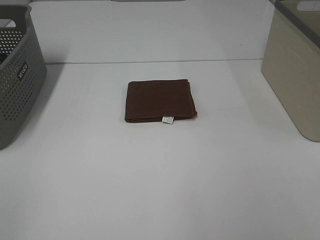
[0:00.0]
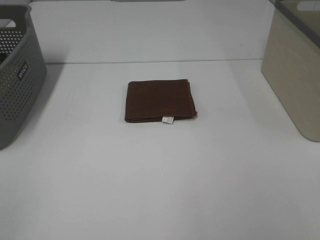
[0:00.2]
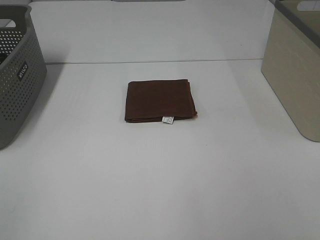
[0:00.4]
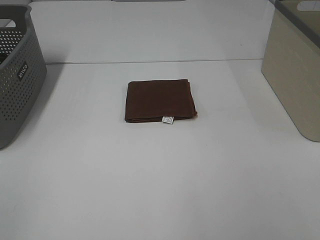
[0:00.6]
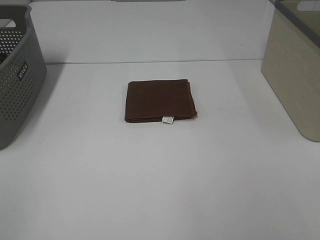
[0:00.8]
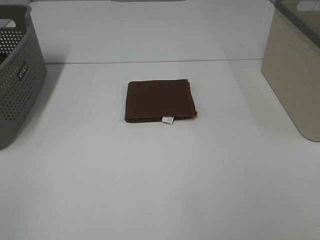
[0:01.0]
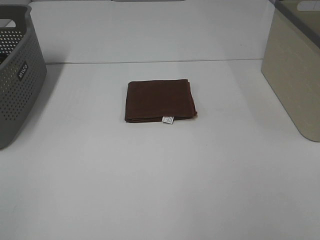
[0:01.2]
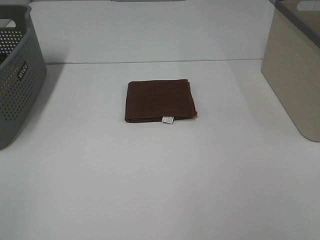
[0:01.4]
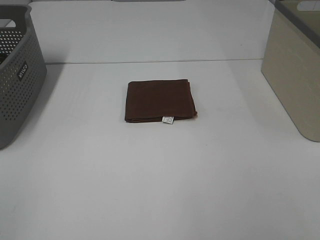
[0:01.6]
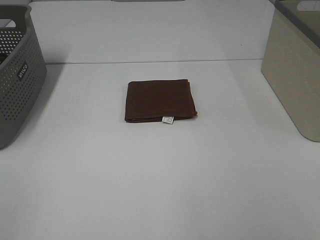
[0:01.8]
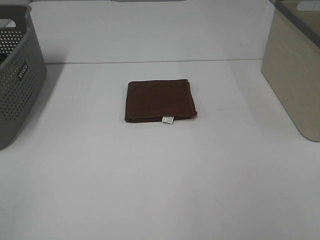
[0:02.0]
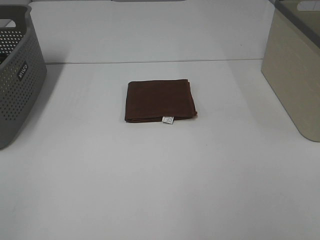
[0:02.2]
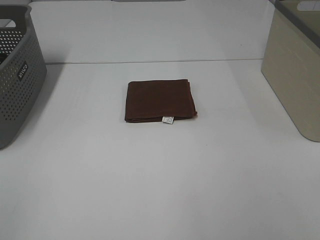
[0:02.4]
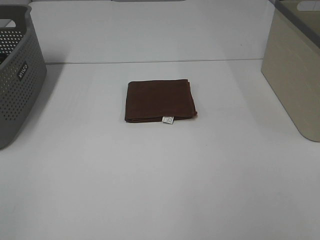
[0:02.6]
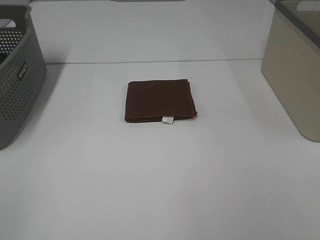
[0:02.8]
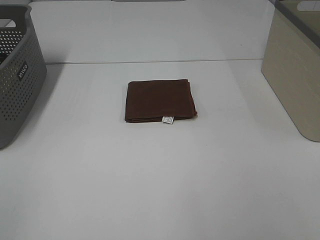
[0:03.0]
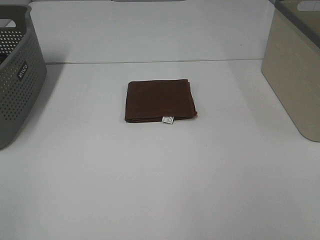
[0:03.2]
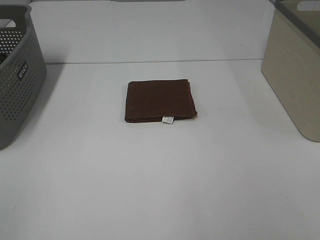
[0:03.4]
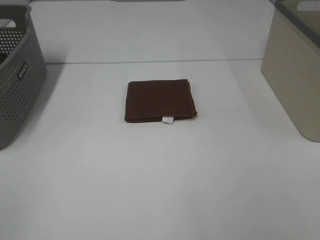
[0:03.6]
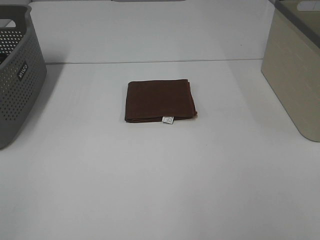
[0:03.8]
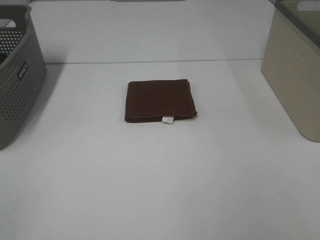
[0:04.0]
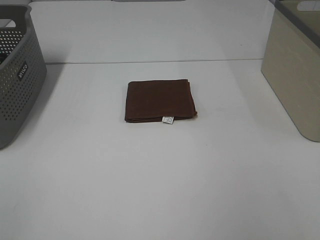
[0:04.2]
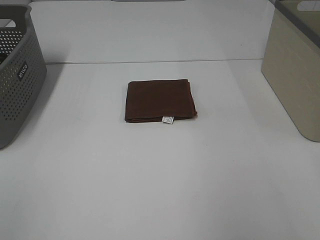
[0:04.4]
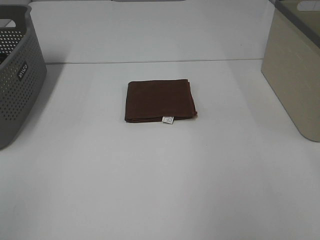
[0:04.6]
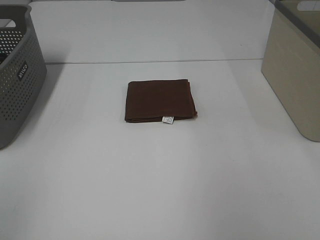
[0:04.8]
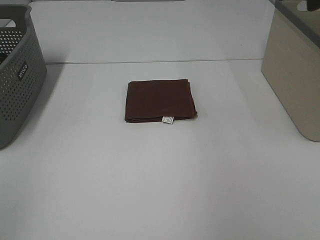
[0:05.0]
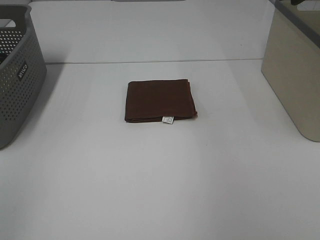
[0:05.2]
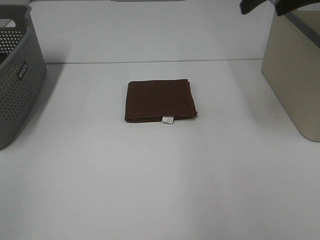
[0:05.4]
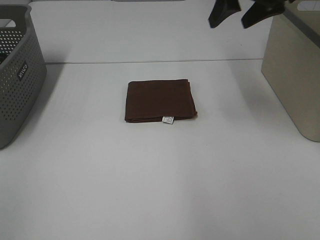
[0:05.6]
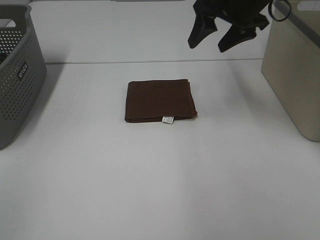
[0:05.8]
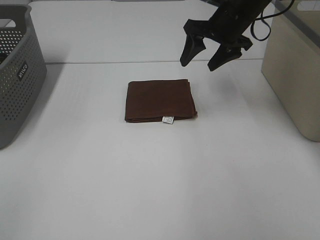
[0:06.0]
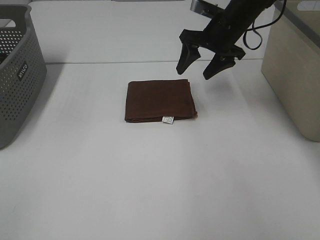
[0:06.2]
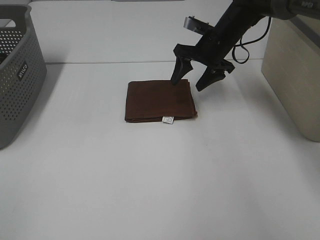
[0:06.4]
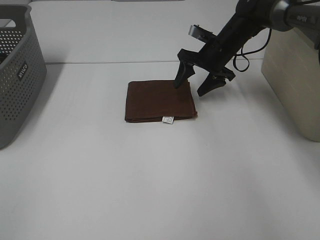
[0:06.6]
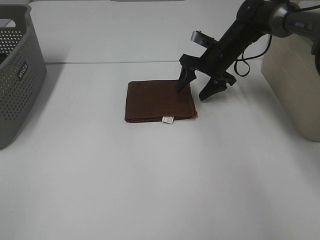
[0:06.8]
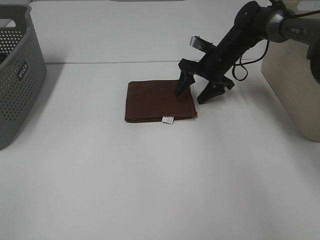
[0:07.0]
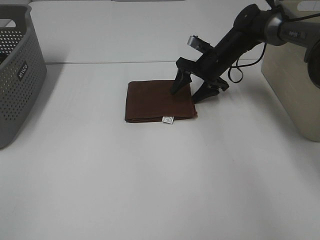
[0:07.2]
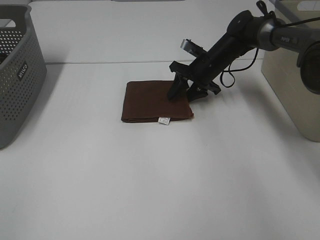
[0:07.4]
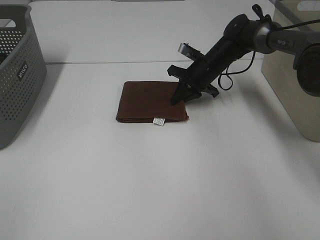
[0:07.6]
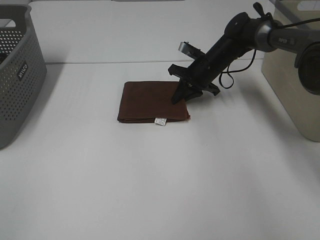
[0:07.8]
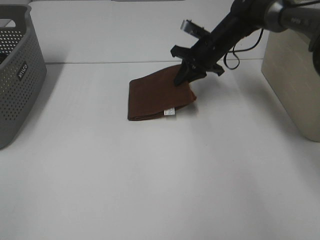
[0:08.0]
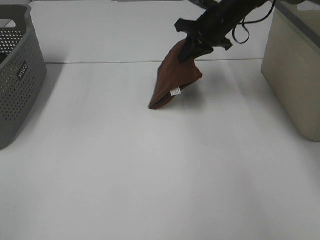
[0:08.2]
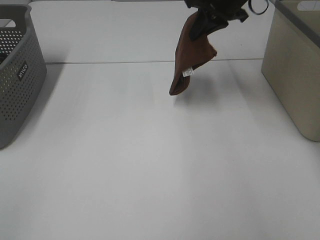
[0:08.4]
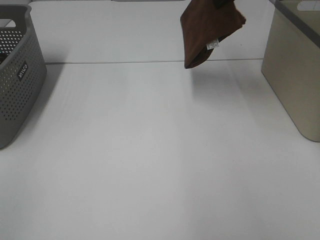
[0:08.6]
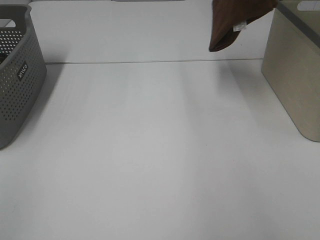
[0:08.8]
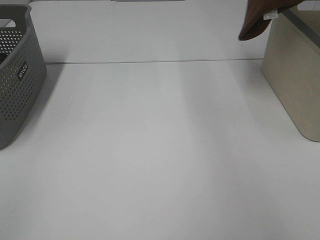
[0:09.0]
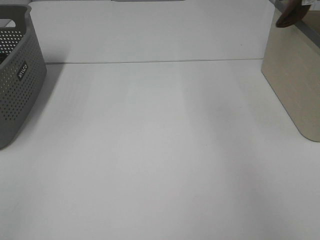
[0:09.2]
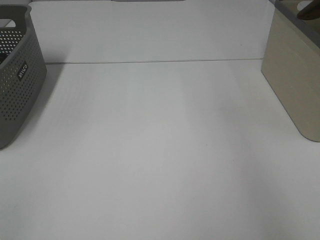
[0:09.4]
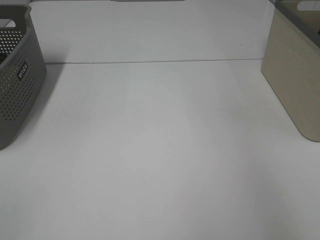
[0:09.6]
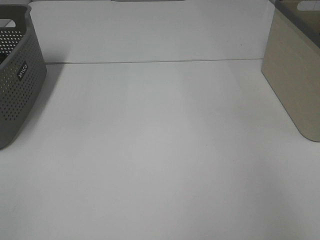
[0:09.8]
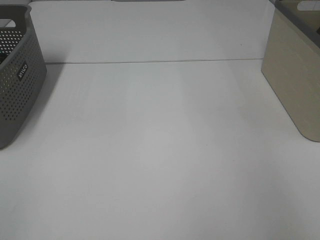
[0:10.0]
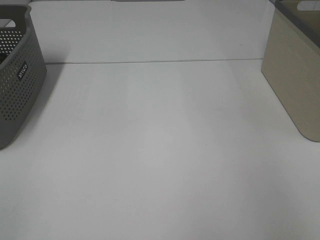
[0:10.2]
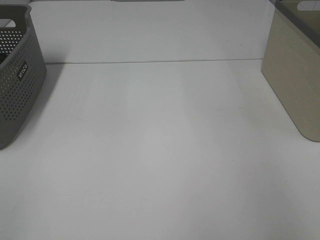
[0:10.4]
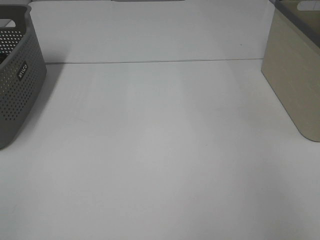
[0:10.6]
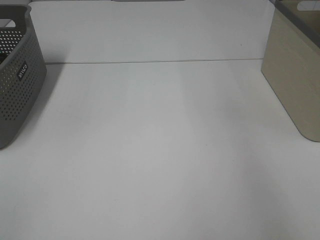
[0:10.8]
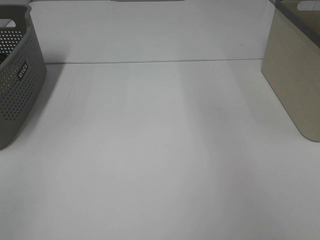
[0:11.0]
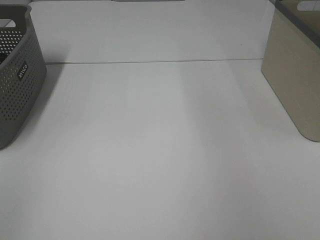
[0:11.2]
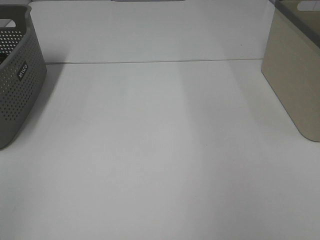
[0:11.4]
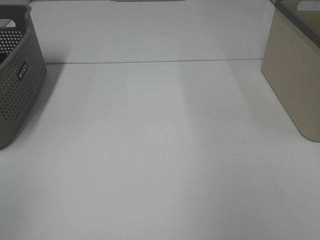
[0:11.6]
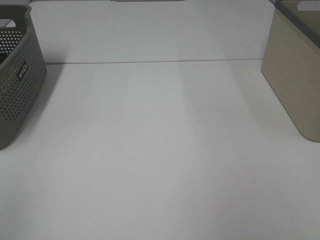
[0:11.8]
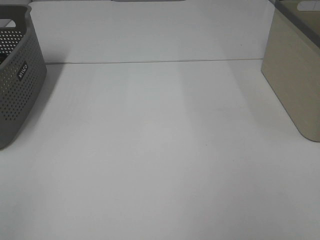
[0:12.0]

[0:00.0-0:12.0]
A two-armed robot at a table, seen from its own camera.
Step, 0.0 to 7.6 s: Right hand: grab the folded brown towel.
Step, 7.8 to 10.4 s: Right hand: place the brown towel in right basket.
0.0 to 3.0 s: Both grippers stay about where they are.
4.4 to 6.0 s: The right gripper shifts approximately 35 cm forward and to the left.
6.0 to 7.6 s: The right gripper is displaced downward by about 15 cm, and closes.
7.6 to 9.0 s: The right gripper is displaced upward and to the right by about 35 cm.
9.0 to 10.4 s: The right gripper shifts some 15 cm to the right and downward, and opens up.

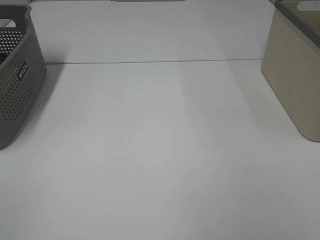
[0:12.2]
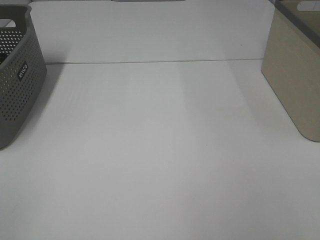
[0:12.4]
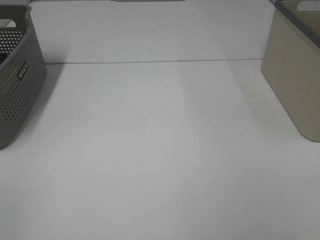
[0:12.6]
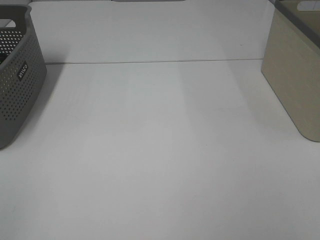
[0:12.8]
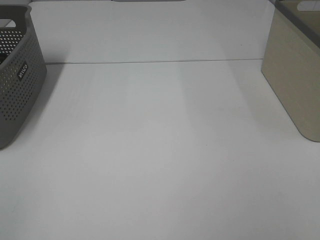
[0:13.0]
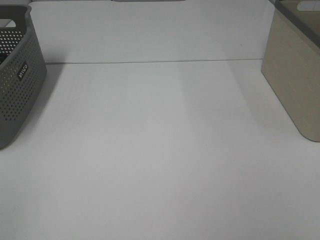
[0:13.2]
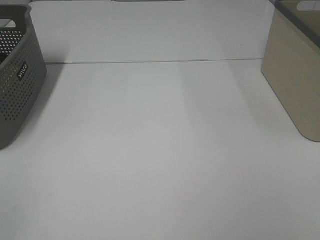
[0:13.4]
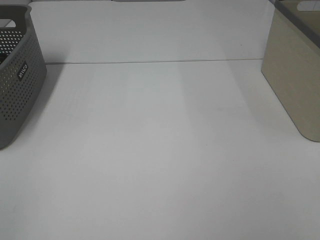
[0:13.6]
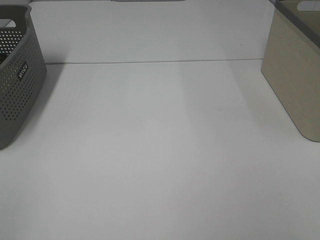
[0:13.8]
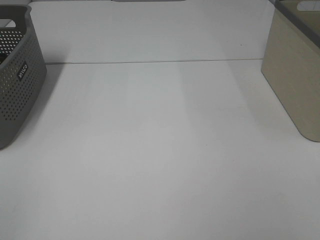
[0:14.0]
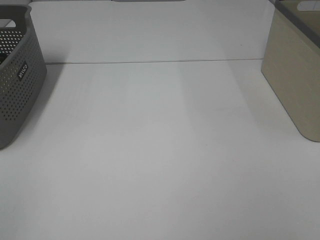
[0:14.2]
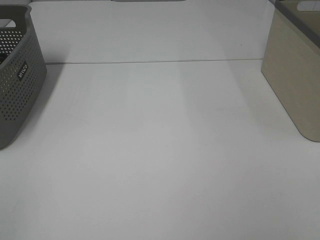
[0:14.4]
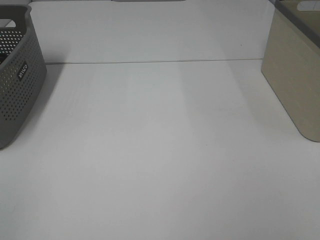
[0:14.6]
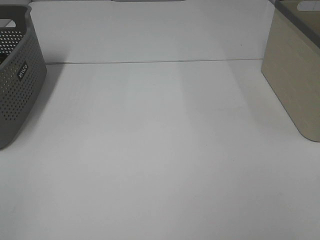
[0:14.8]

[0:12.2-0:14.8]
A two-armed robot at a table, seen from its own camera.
13.4 to 14.8 s: The two grippers keep their place.

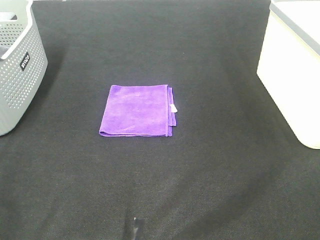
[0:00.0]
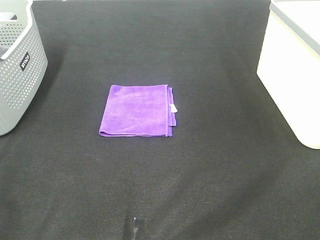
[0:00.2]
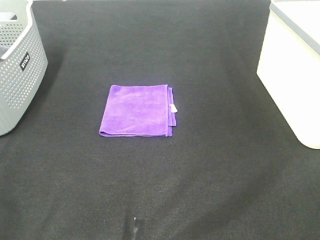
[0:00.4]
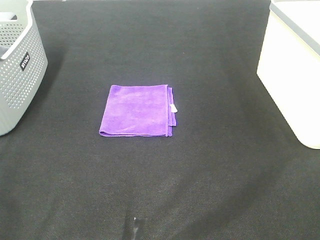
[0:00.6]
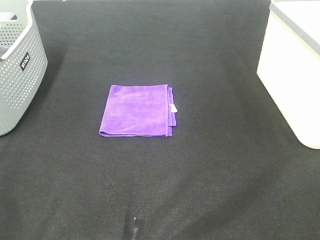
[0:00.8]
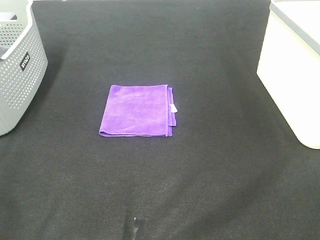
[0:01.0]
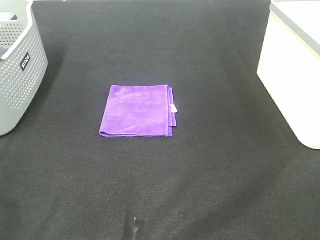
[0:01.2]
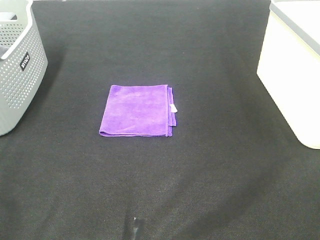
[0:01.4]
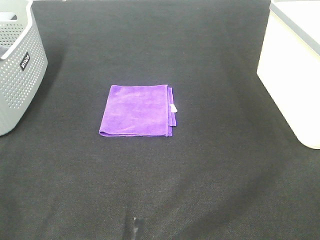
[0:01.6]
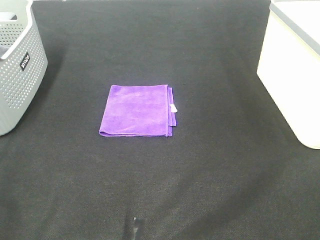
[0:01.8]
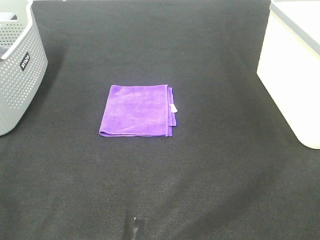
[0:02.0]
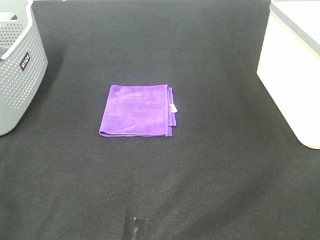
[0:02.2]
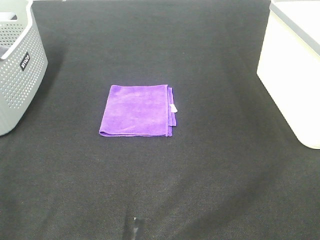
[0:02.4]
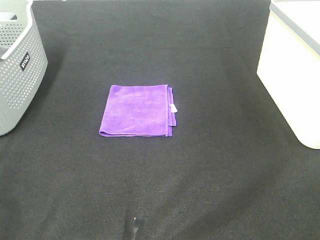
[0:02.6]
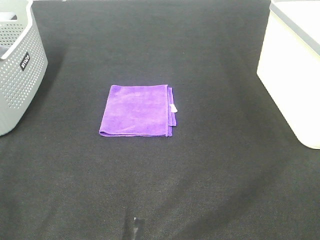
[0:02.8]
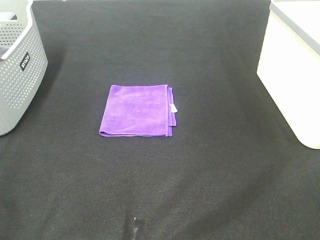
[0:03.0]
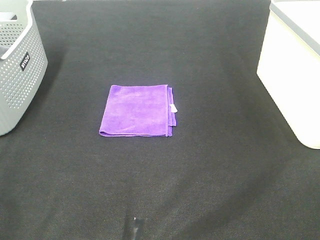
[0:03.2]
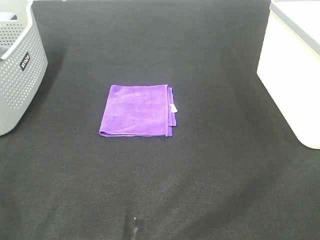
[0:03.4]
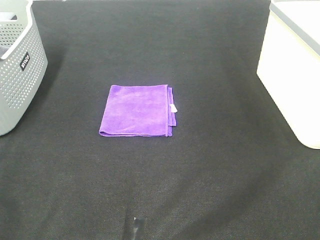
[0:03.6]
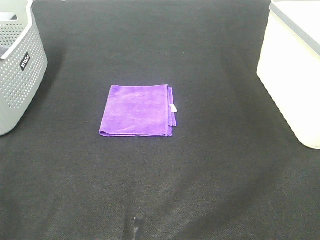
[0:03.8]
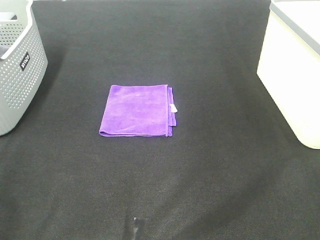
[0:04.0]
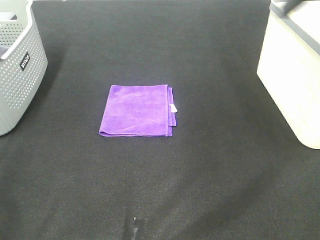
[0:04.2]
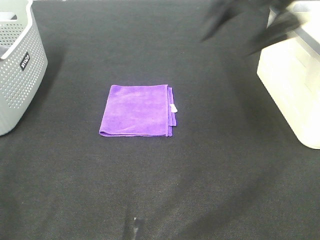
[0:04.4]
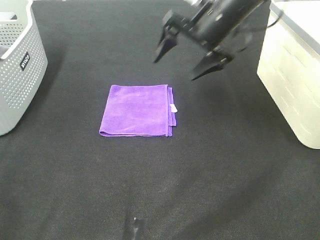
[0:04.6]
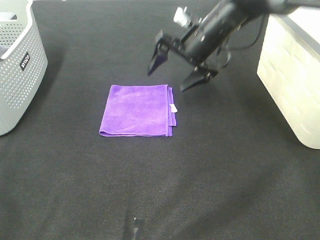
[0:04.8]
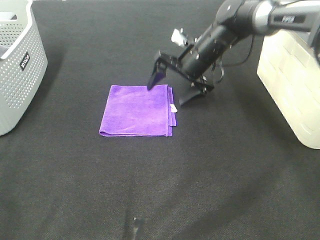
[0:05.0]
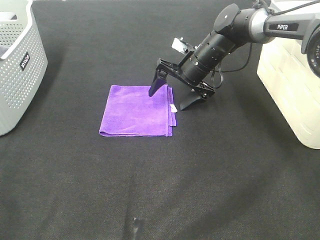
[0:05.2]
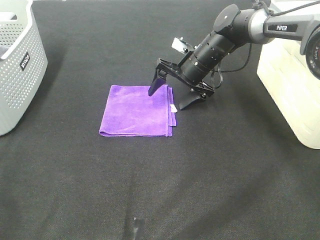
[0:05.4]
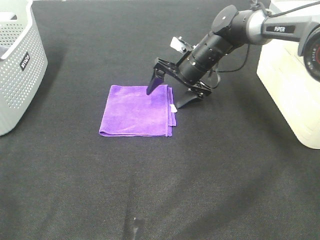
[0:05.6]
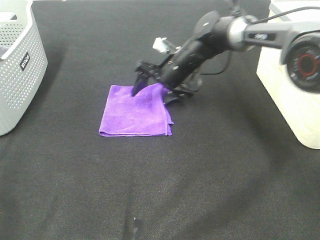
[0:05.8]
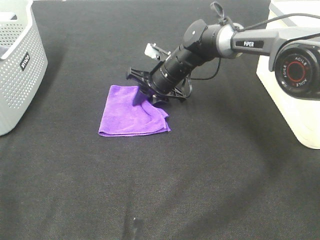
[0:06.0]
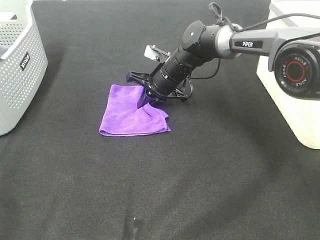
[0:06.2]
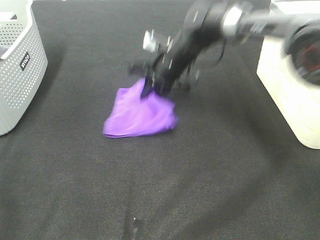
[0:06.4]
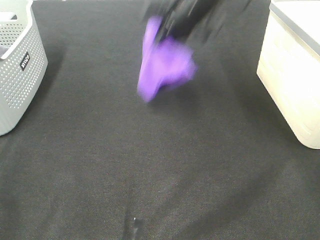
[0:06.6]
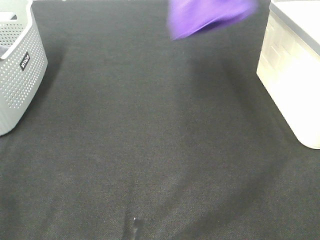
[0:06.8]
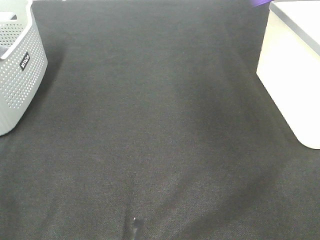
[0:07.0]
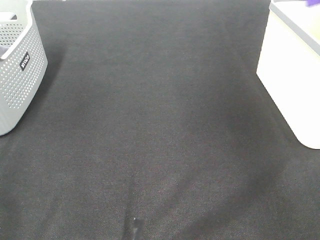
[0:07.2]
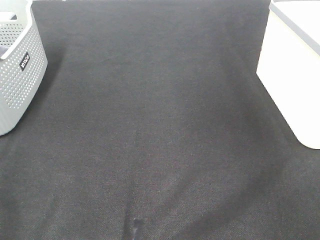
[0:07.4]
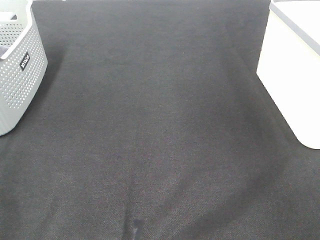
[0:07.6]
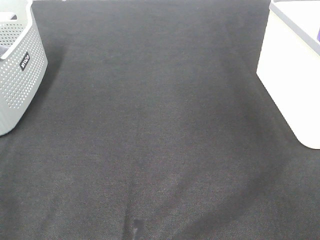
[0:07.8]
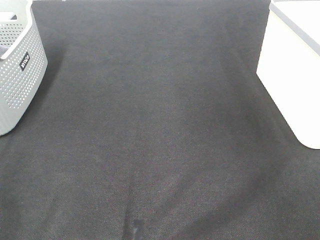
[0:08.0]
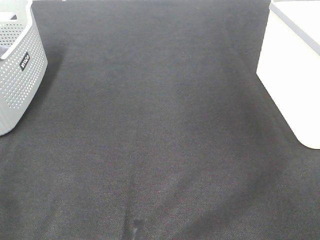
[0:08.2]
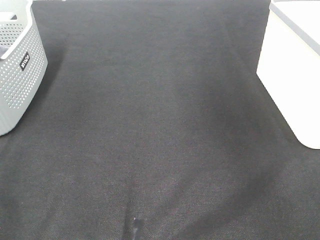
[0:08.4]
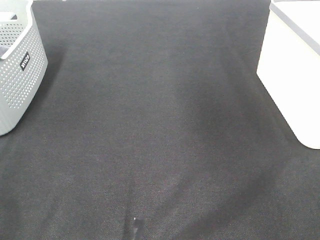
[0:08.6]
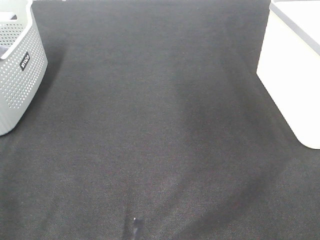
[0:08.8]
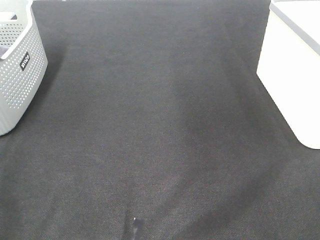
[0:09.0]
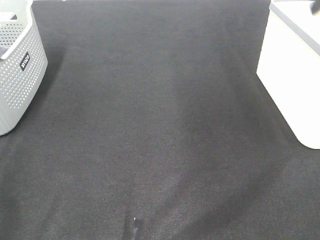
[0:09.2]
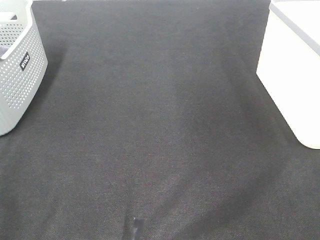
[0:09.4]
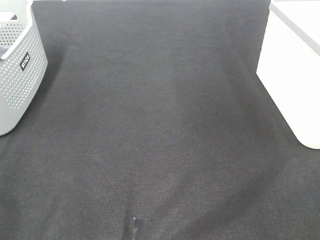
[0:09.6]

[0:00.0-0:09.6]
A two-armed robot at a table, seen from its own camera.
Step, 0.0 to 6.2 s: Right hand: grab the folded purple towel.
Step, 6.4 to 7.8 s: Right hand: place the purple towel in right basket.
0.0 to 3.2 s: Both grippers stay about where they are.
3.2 to 4.8 s: The right gripper heads forward and to the left, covering some 50 cm.
4.8 to 6.4 s: The right gripper moves to the left, about 5 cm, goes downward and returns, roughly 10 cm each way, and closes its fingers.
6.4 to 8.0 s: The right gripper heads to the right and upward, covering some 40 cm, and opens.
